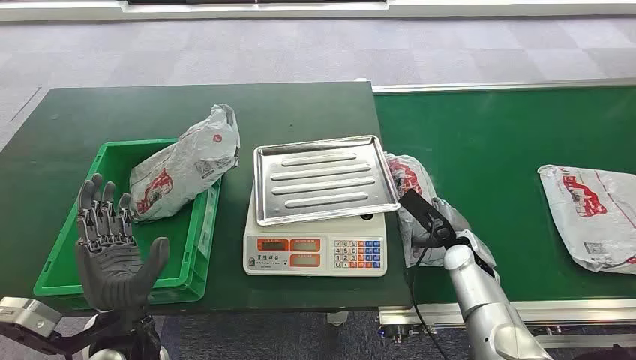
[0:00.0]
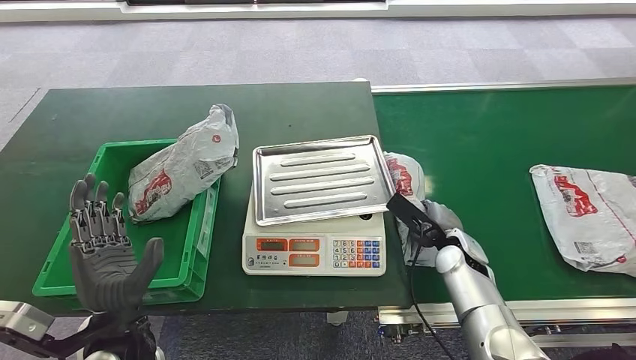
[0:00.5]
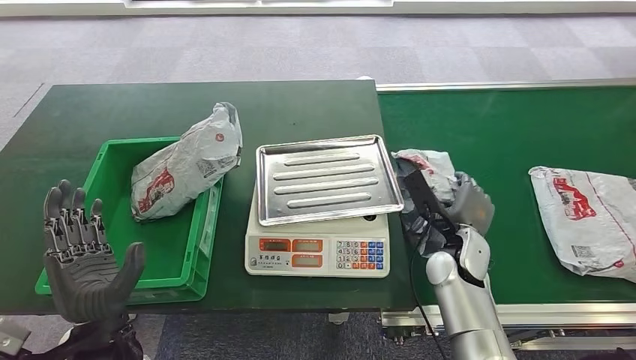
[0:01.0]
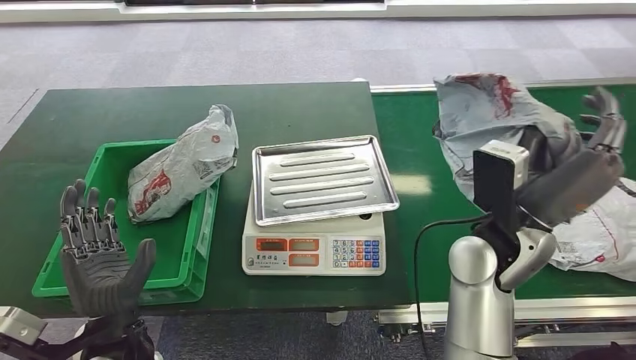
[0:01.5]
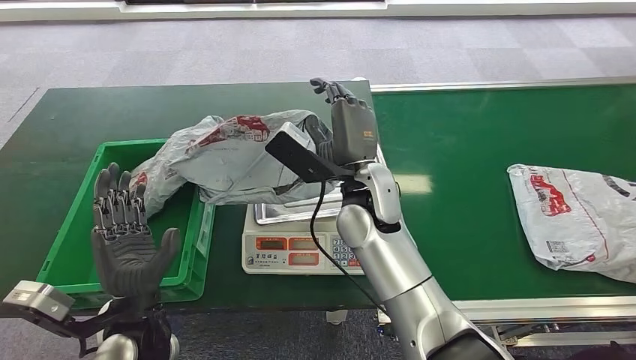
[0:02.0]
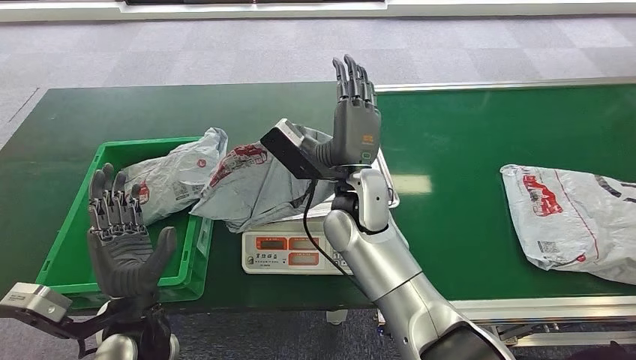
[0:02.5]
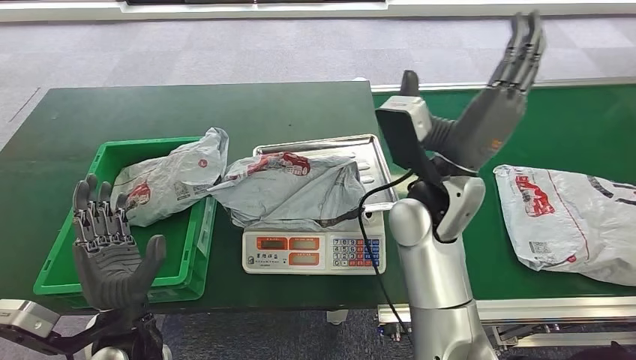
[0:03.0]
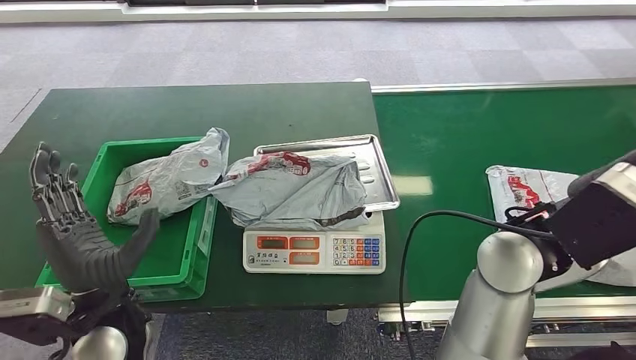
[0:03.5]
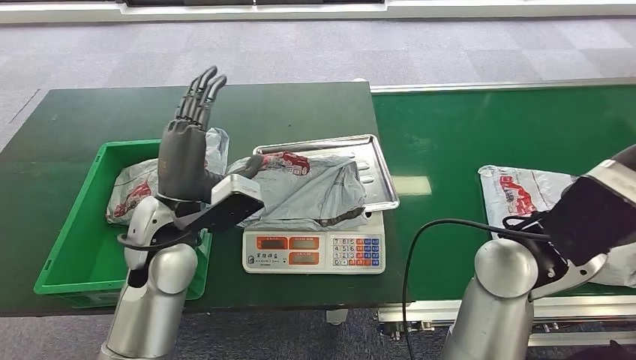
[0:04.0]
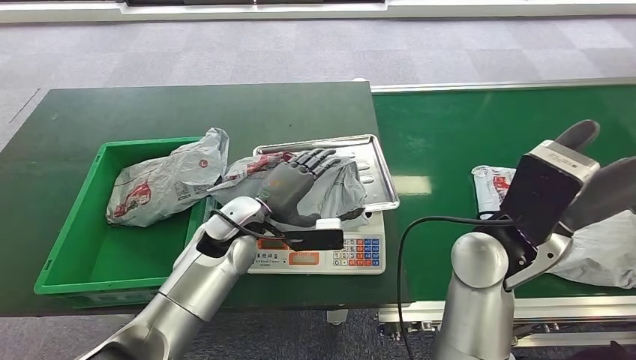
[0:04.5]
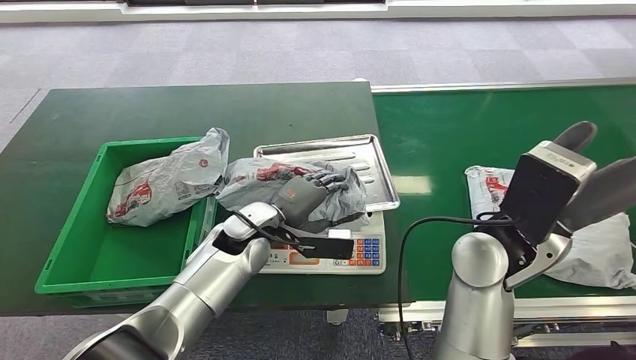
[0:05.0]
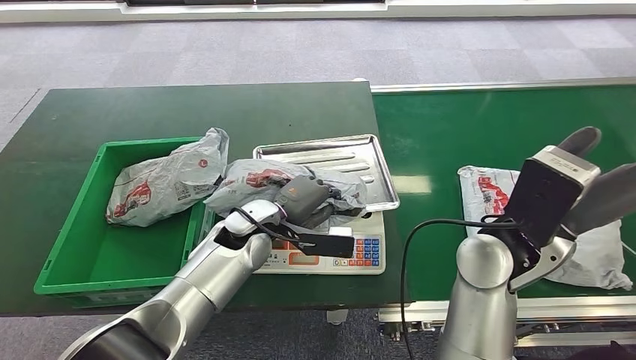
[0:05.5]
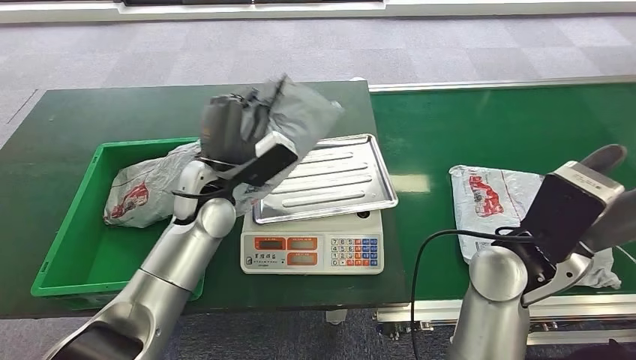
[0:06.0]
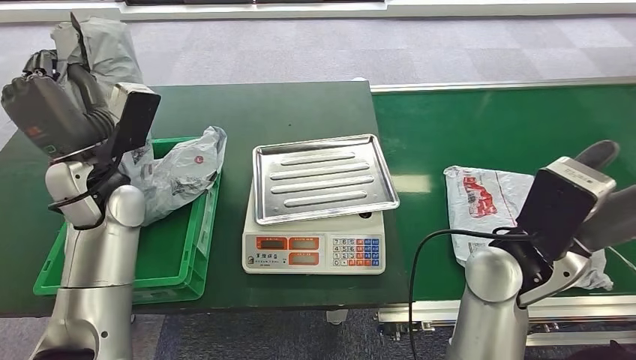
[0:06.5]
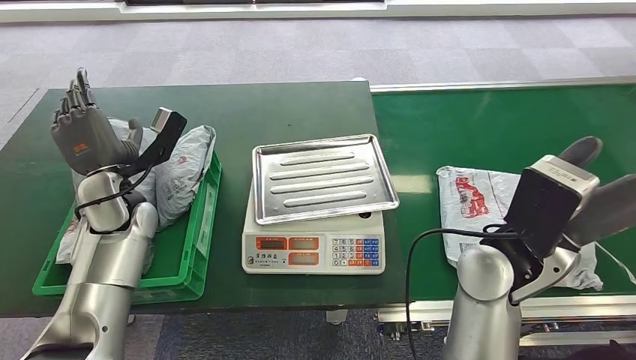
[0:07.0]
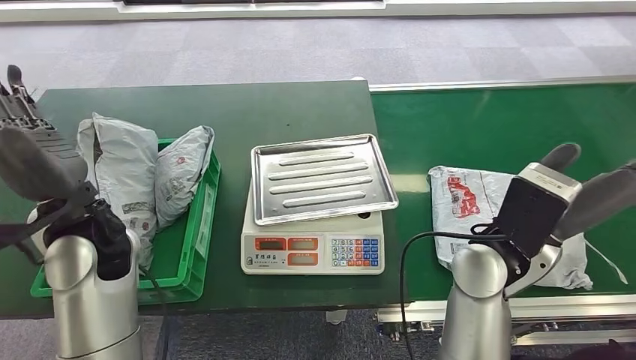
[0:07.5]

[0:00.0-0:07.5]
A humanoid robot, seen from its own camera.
Step, 0:00.0 to 0:01.5: Pick up the package from the conveyor belt.
Step, 0:02.0 to 0:03.0: Place the package onto the inbound machine.
Step, 0:03.5 to 0:06.0: Pick up the package from the inbound machine.
Step, 0:06.5 to 0:07.0: Place the package into the parcel locker.

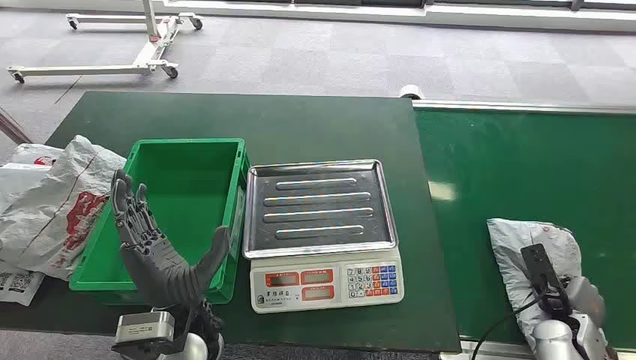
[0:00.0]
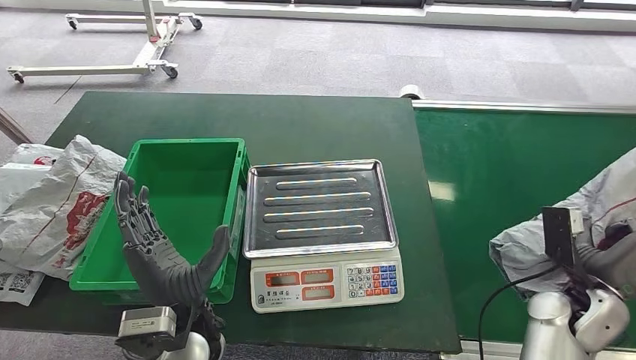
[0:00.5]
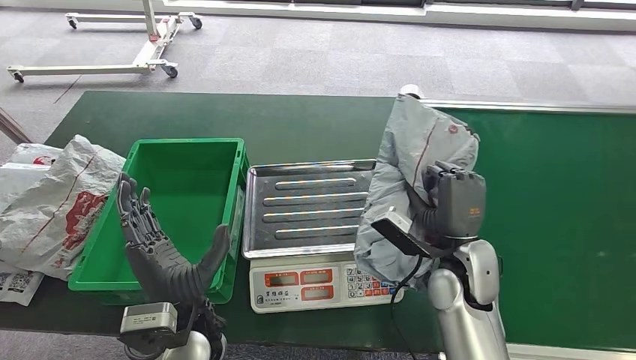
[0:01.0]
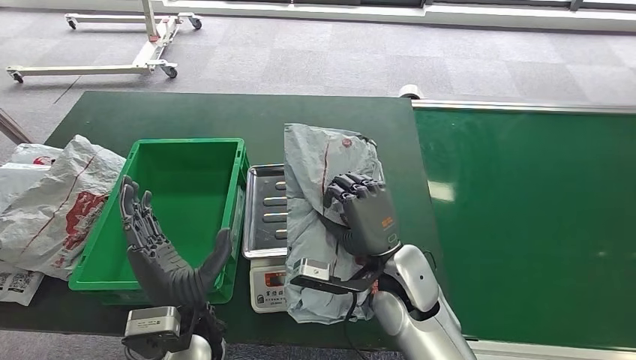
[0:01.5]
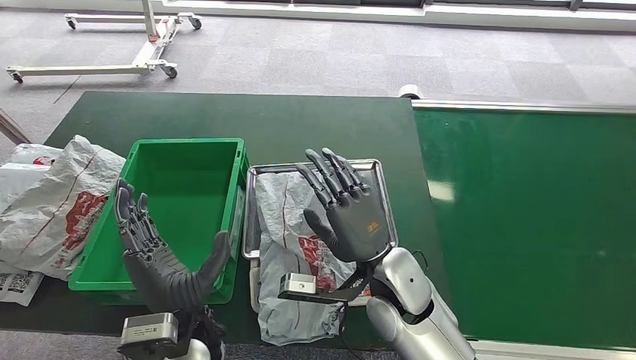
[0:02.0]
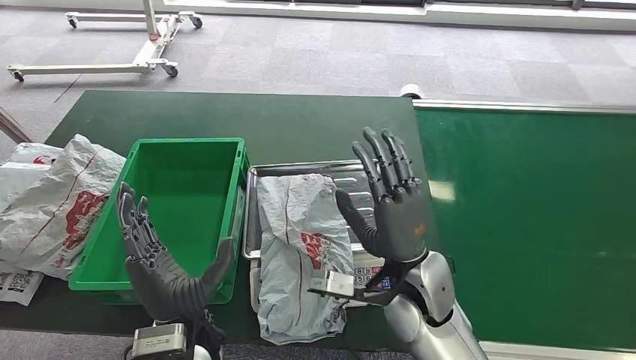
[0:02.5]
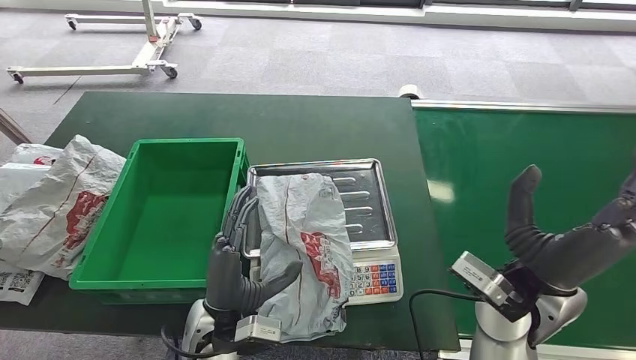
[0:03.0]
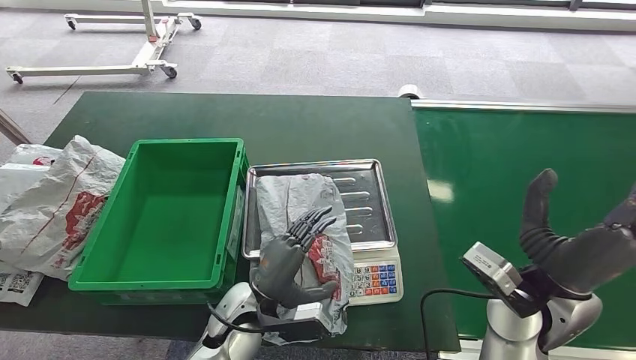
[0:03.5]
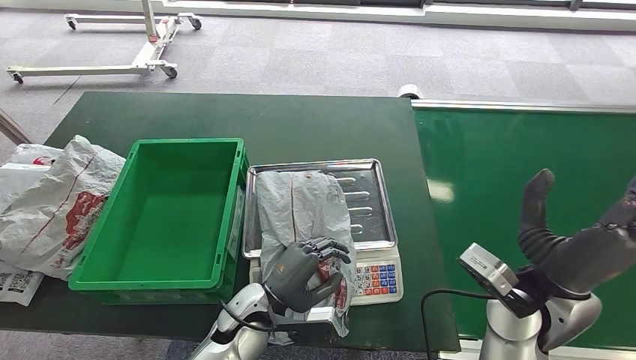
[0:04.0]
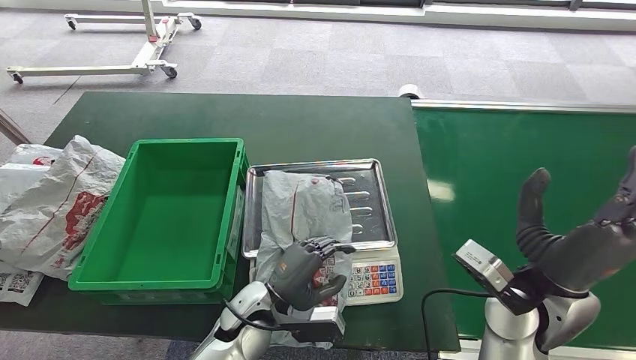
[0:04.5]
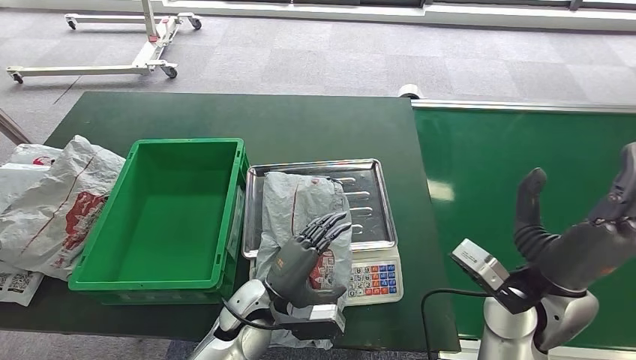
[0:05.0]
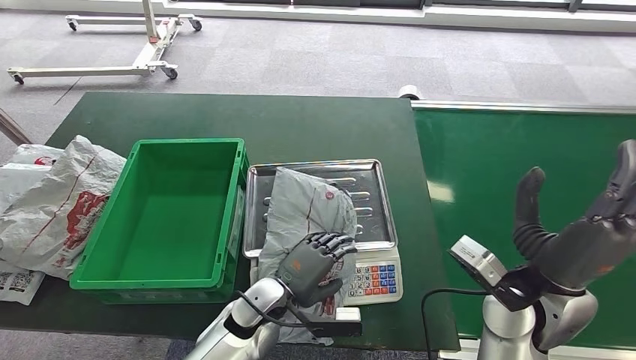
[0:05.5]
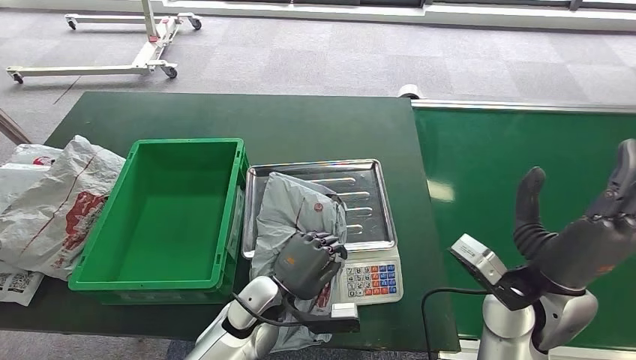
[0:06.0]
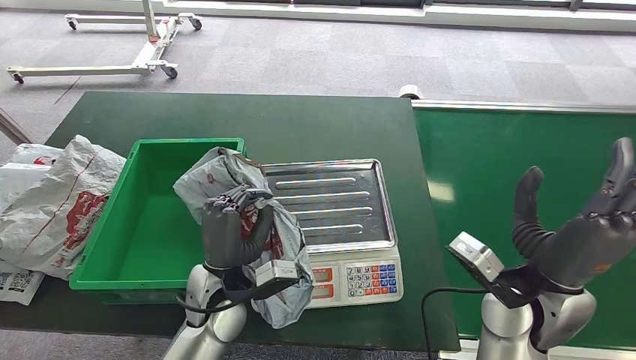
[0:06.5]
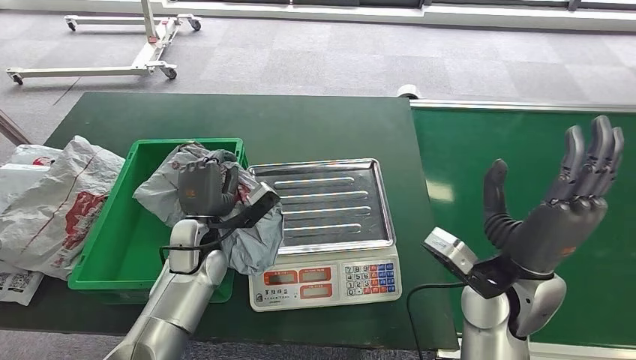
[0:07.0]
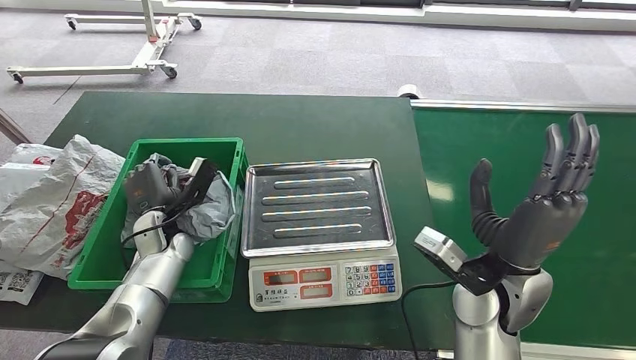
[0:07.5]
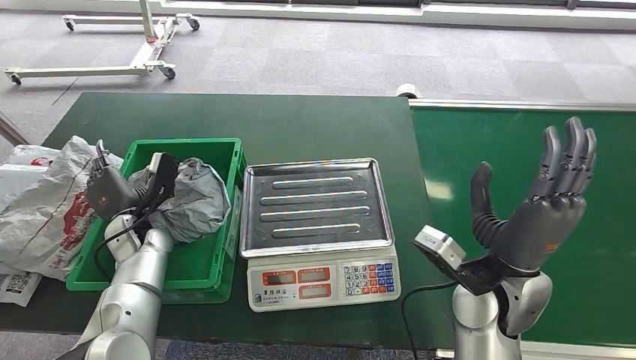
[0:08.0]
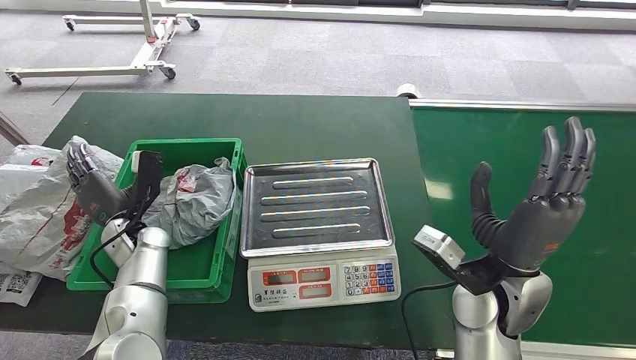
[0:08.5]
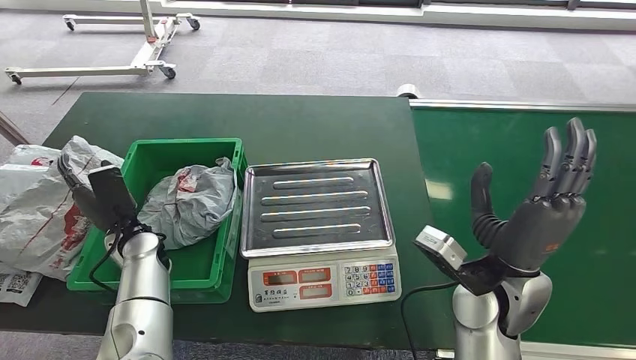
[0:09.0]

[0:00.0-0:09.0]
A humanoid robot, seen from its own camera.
Step, 0:00.0 to 0:00.5: Pick up the package from the conveyor belt.
Step, 0:01.0 to 0:02.0: Place the package onto the inbound machine.
Step, 0:02.5 to 0:06.5: Pick up the package from the inbound machine.
Step, 0:07.0 to 0:09.0: Place the package into the parcel locker.
0:02.0 to 0:04.5: The right hand goes roughly 15 cm to the right. The left hand moves downward and forward, about 10 cm.
0:07.0 to 0:09.0: The left hand is displaced to the left by roughly 10 cm.
